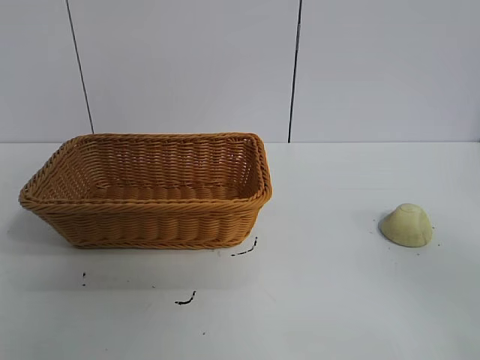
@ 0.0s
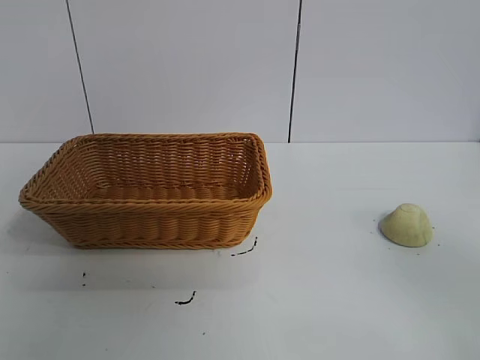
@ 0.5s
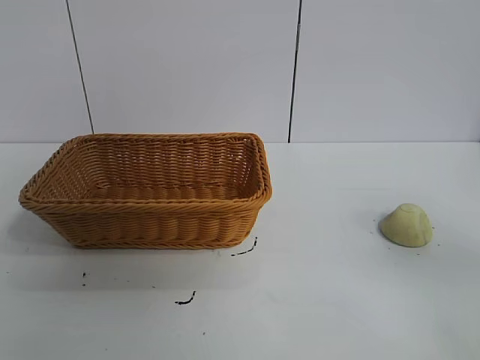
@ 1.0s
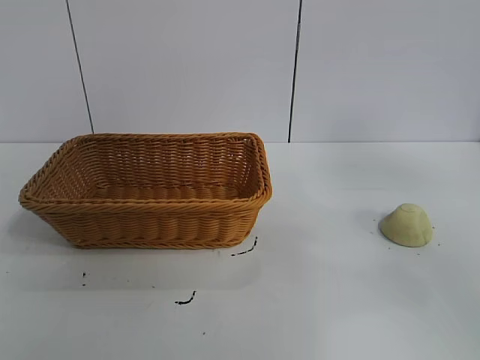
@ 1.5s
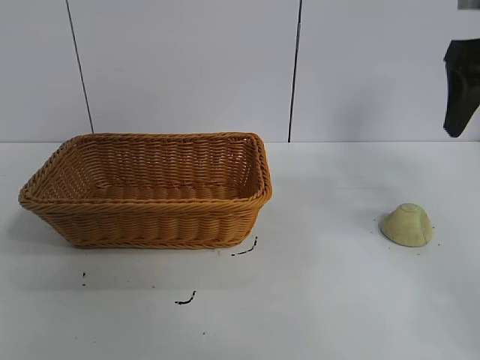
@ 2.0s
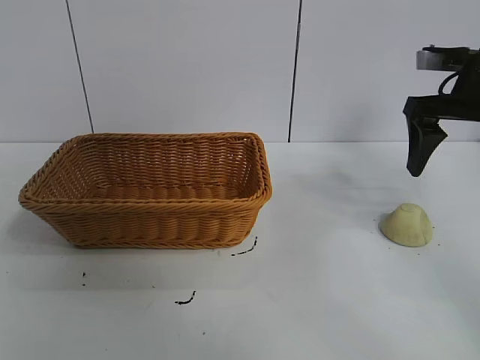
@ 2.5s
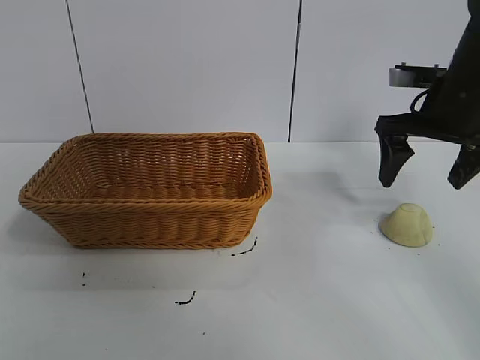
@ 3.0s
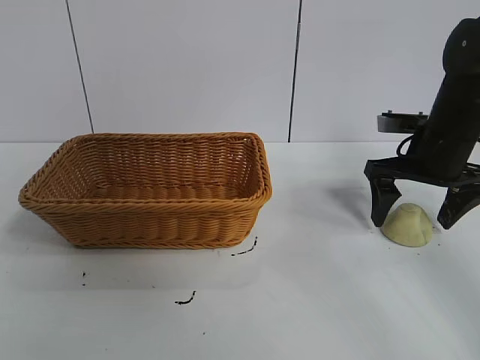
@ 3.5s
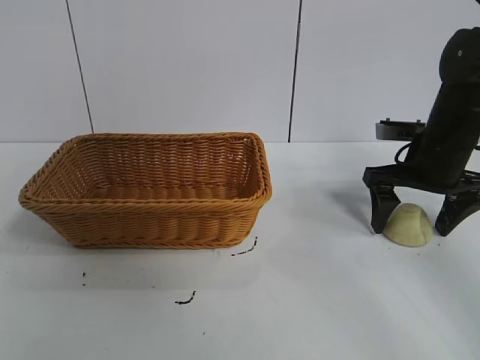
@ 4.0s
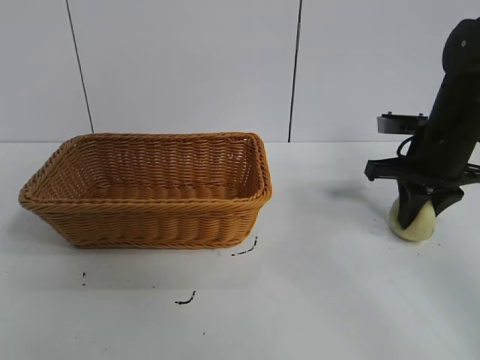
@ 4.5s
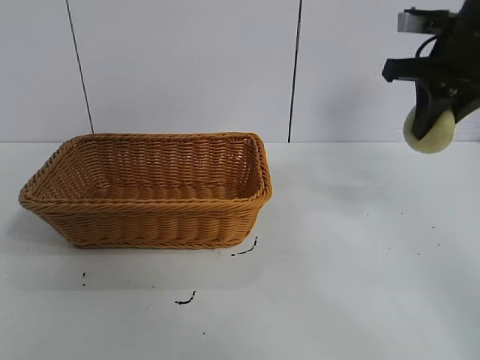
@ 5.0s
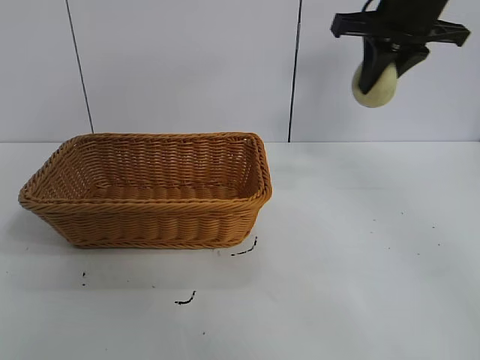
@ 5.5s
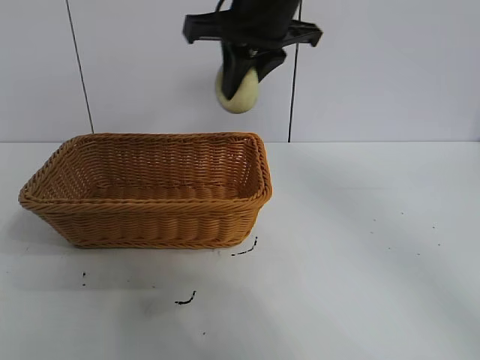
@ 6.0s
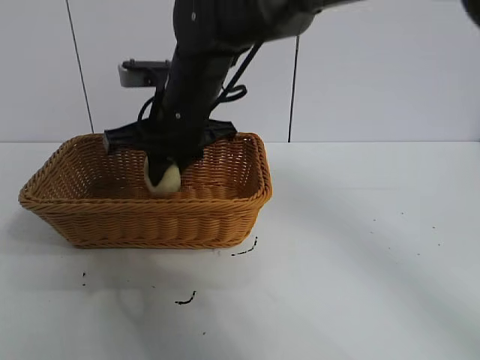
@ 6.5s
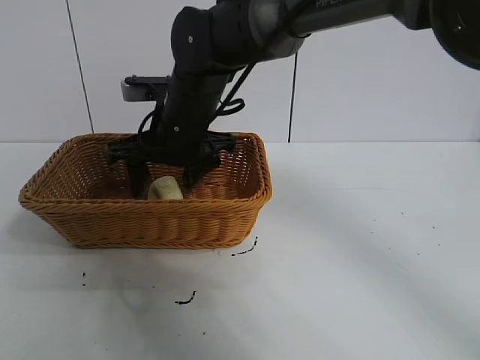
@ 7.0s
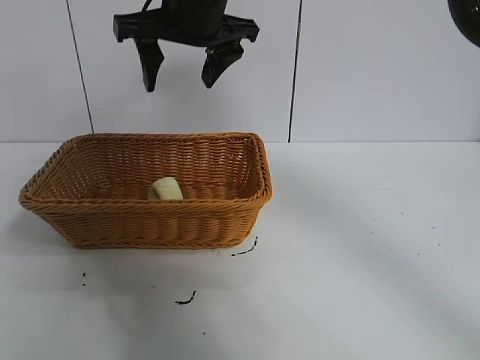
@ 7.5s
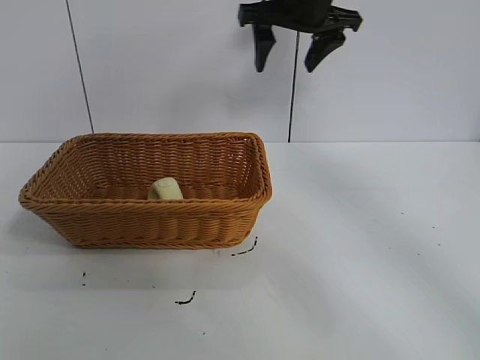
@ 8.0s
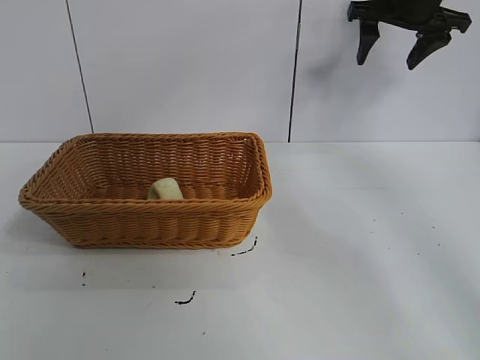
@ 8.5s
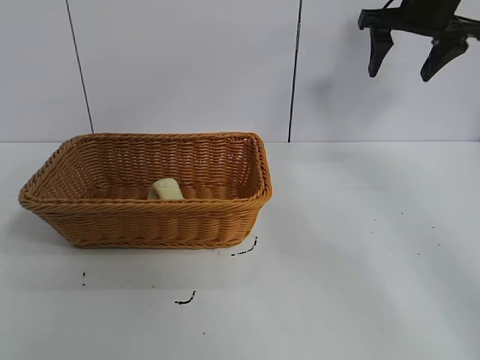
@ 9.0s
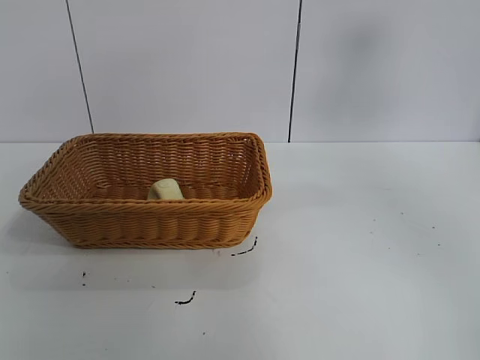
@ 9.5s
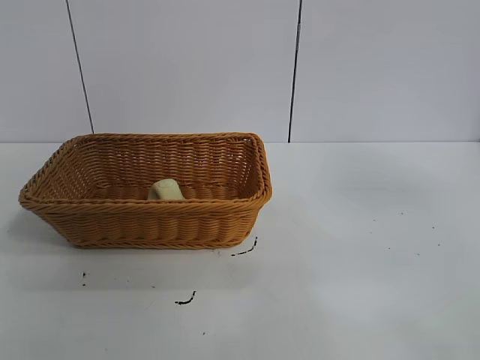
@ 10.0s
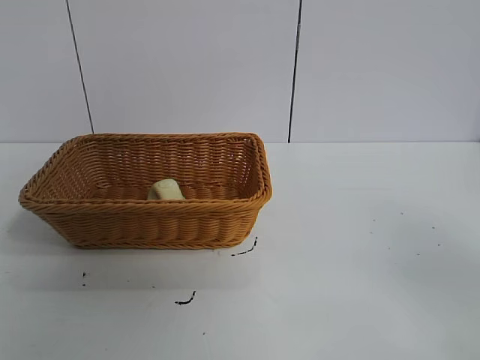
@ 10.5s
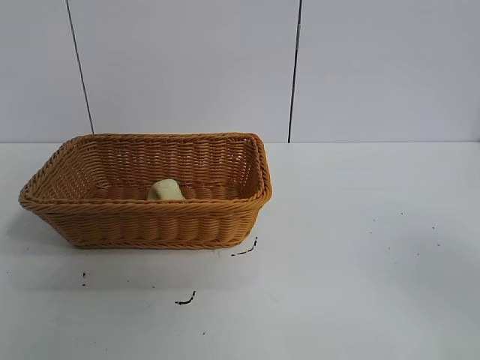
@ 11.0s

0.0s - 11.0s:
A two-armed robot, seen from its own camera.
Task of the whole recording: pick up the egg yolk pastry and put it into the basket.
Step, 1.0s - 4.0s: Grasp egg yolk pastry with right gripper.
Step, 4.5s - 7.0s: Place the egg yolk pastry in the basket with right gripper.
